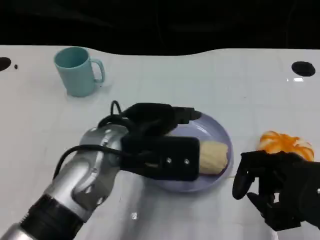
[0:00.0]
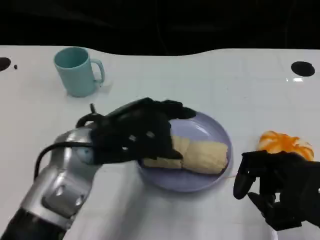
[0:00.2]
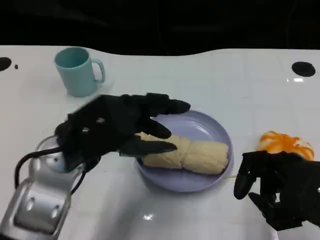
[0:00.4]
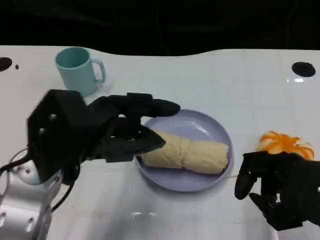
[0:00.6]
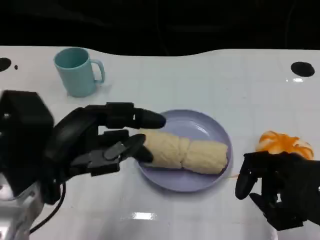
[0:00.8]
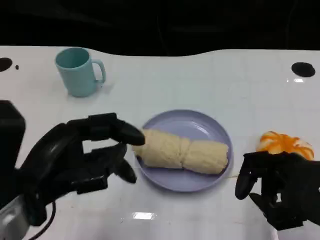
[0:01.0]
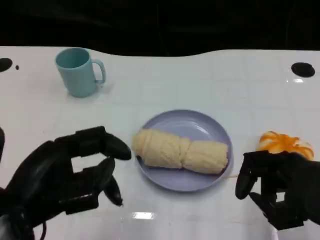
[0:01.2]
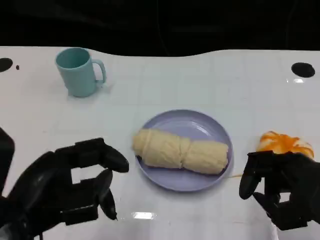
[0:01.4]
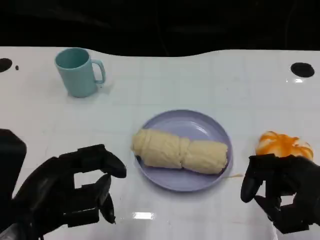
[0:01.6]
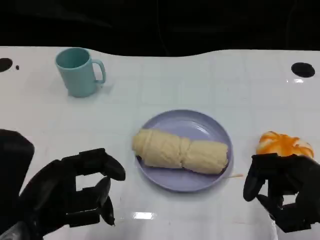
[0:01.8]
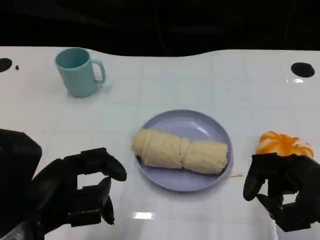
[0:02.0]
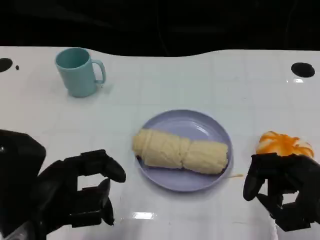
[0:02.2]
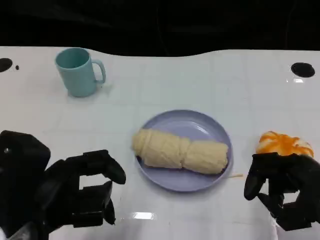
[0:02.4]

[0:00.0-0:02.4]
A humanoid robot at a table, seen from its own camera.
Task of the whole recording: Grasp the towel on the left side of the plate with the left hand and place it into the plate.
0:00.0 to 0:01.2: The left hand moves to the left and backward, about 15 cm.
0:01.2 to 0:02.4: The hands stay close to where they were, moving slightly.

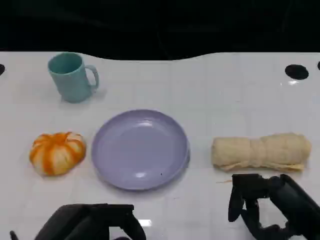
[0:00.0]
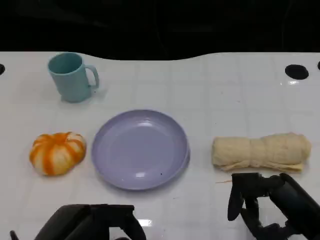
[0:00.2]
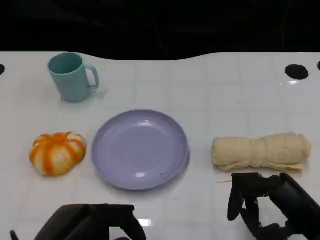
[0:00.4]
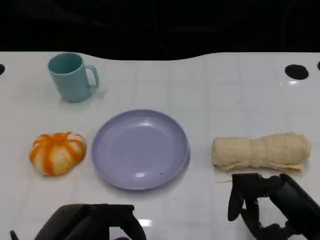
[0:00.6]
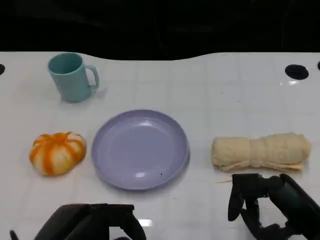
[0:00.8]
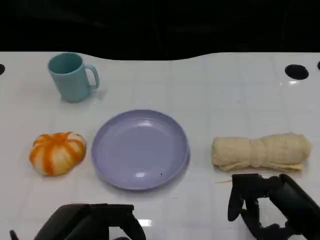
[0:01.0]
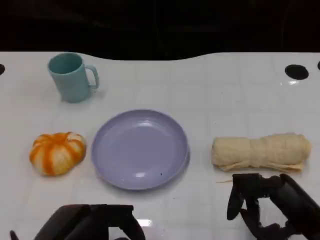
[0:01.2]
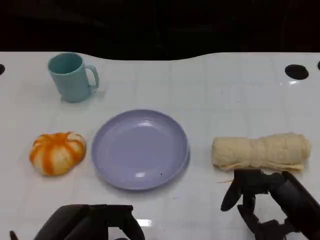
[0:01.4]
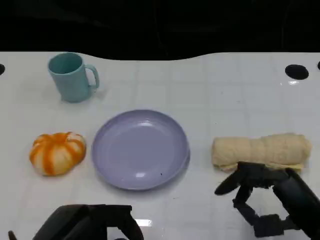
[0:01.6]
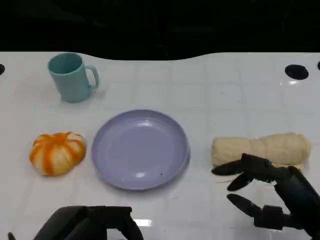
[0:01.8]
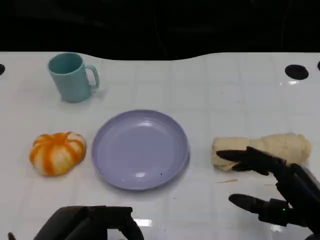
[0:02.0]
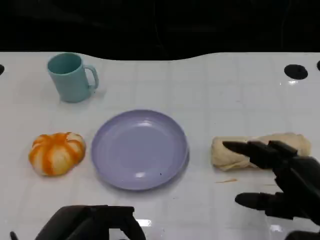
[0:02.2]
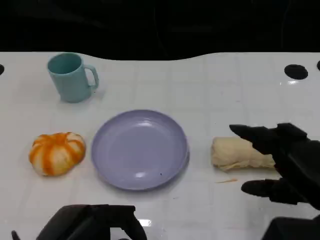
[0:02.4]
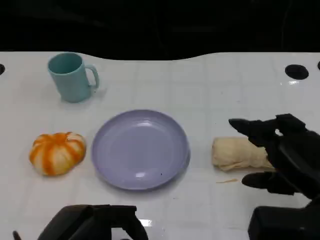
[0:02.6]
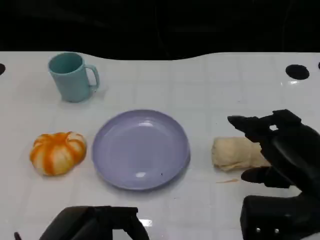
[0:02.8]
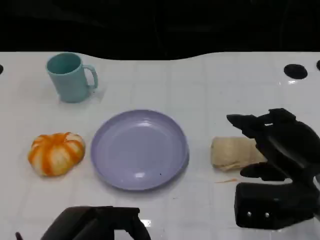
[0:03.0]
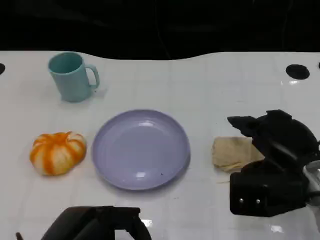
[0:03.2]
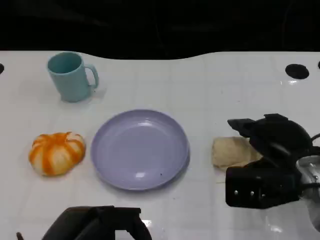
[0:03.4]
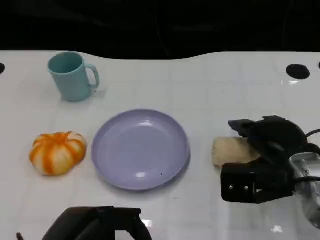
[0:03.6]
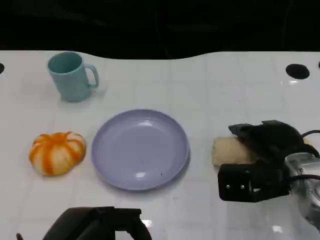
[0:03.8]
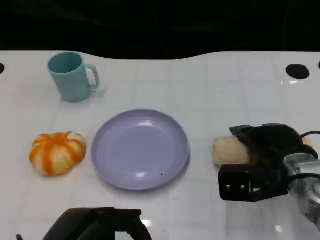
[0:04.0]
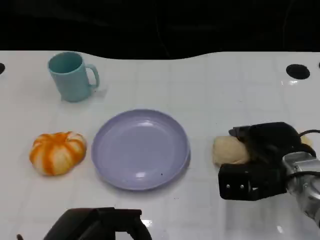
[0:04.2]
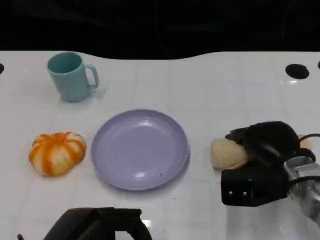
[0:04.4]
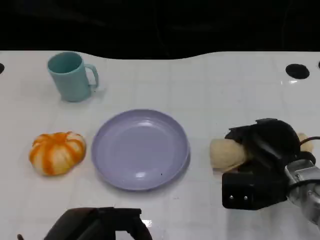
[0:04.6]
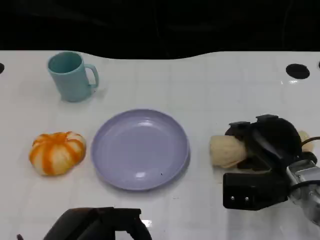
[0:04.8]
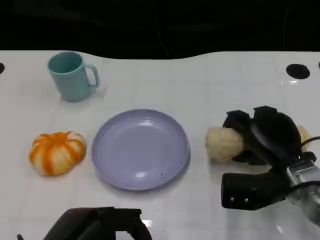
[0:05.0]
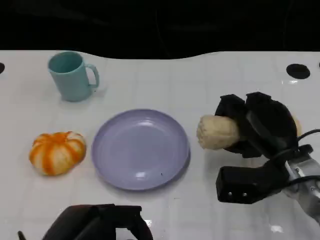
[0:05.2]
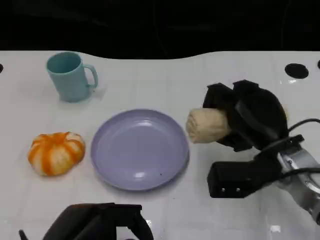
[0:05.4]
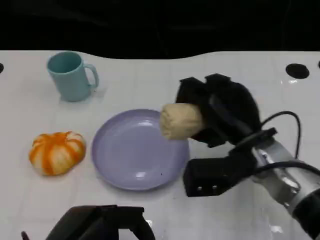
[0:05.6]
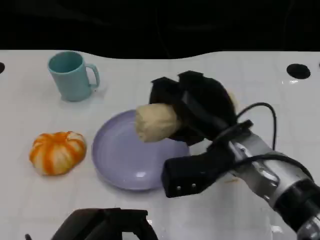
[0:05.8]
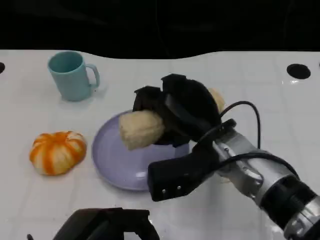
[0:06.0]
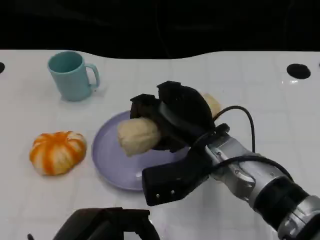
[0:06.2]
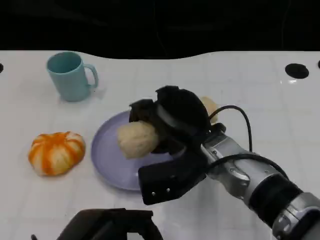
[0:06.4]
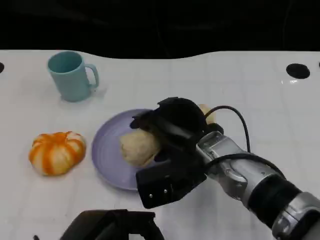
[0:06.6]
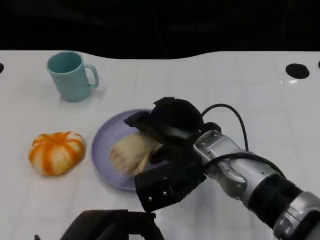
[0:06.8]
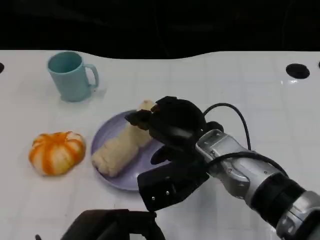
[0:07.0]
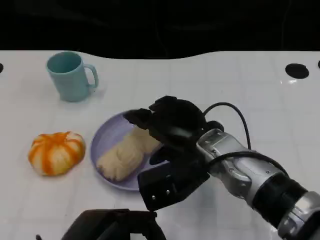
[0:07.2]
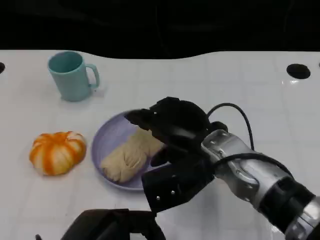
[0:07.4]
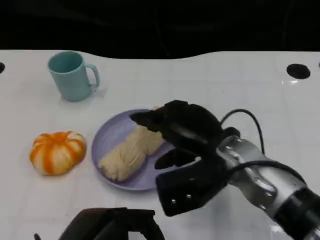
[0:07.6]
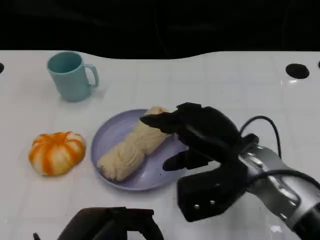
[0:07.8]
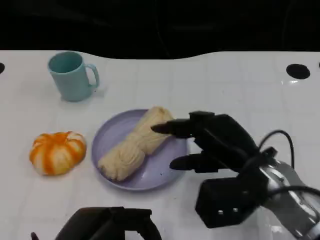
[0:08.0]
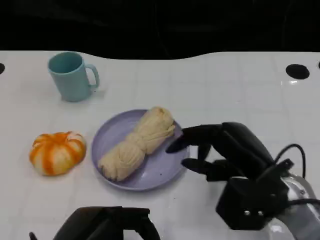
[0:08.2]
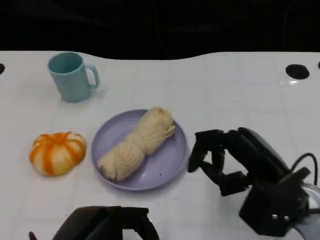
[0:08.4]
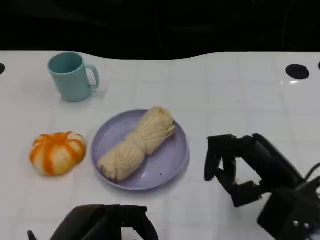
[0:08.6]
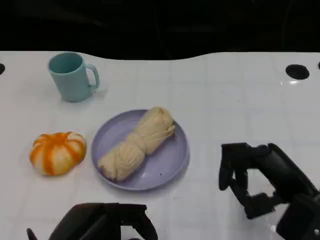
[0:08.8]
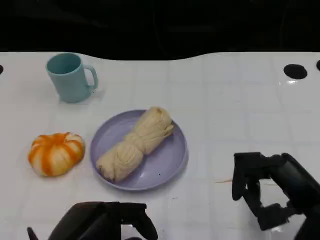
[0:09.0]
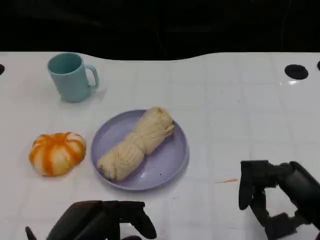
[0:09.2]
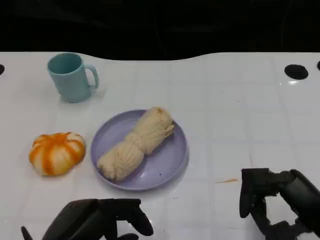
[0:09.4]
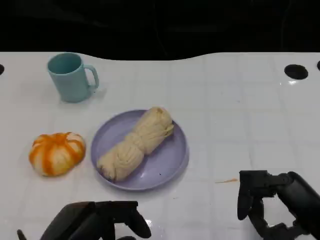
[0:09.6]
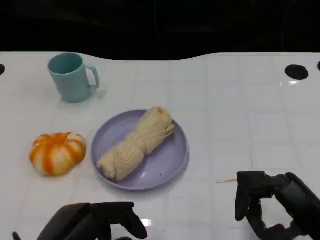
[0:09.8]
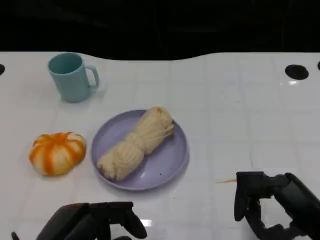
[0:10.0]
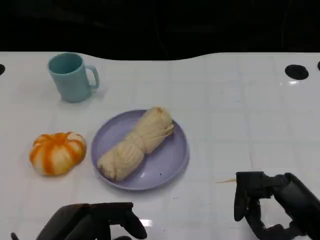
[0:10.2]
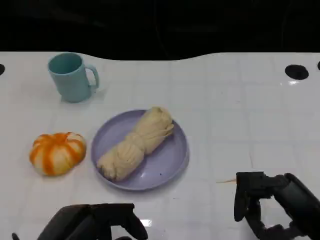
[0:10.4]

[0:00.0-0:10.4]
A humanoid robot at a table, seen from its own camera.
Task of the whole recording: Grasp the towel on the left side of the plate with the left hand and place it into the plate.
0:00.0 to 0:01.4: The two hands keep their place.
0:01.4 to 0:03.0: The right hand heads forward, covering roughly 5 cm.
0:03.0 to 0:04.4: The right hand is displaced downward and forward by roughly 10 cm.
0:04.4 to 0:06.0: The right hand shifts approximately 15 cm to the left and upward.
0:07.4 to 0:09.0: The right hand goes about 20 cm to the right and backward.
0:09.0 to 0:10.4: The hands stay close to where they were, moving slightly.
